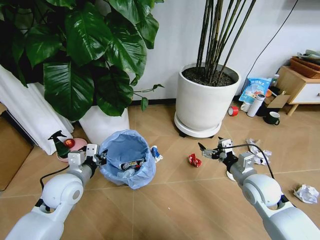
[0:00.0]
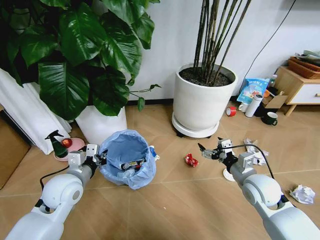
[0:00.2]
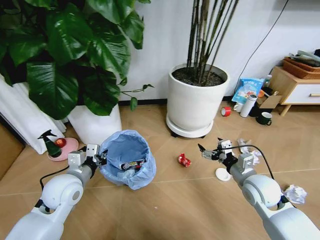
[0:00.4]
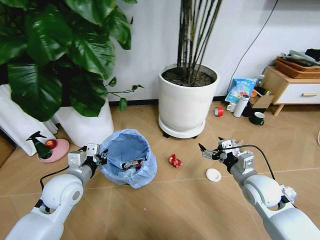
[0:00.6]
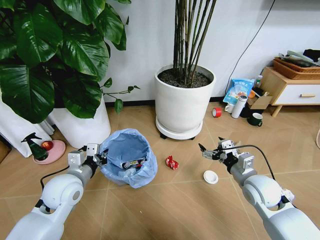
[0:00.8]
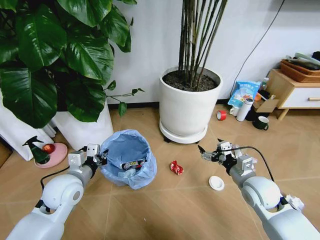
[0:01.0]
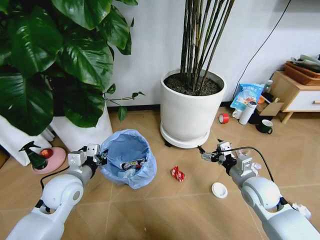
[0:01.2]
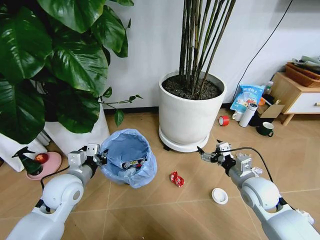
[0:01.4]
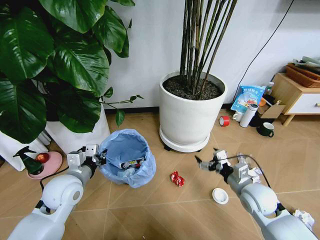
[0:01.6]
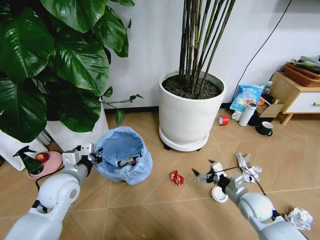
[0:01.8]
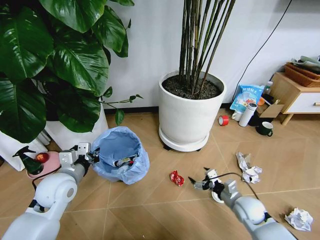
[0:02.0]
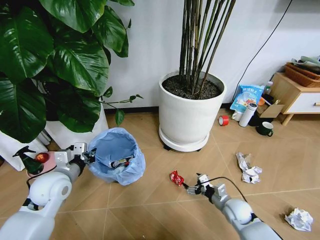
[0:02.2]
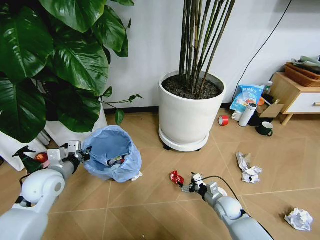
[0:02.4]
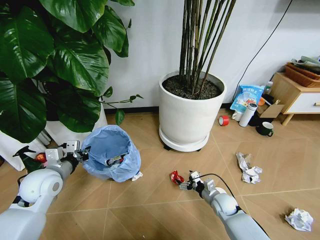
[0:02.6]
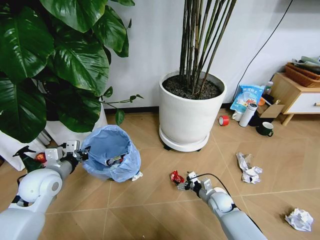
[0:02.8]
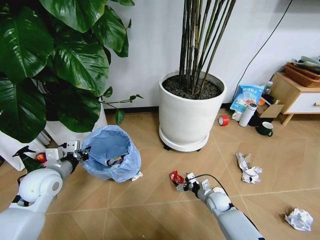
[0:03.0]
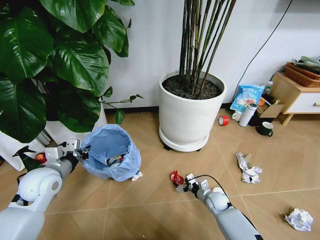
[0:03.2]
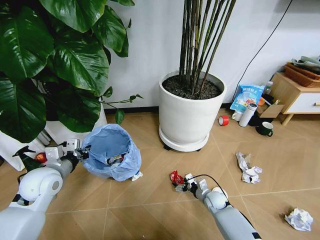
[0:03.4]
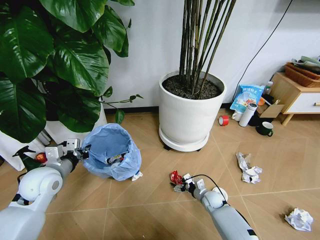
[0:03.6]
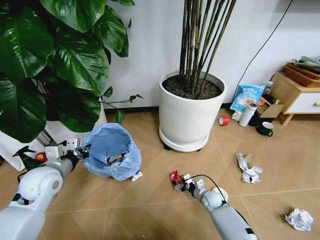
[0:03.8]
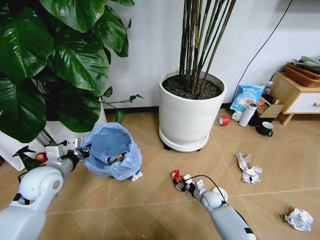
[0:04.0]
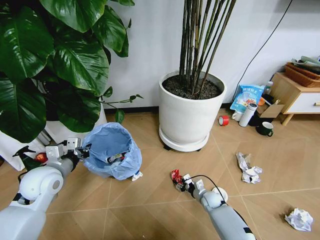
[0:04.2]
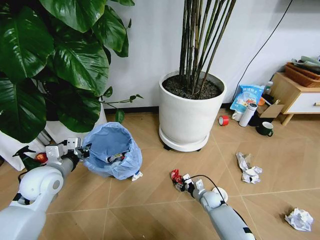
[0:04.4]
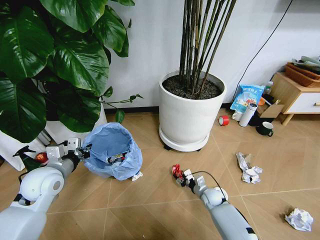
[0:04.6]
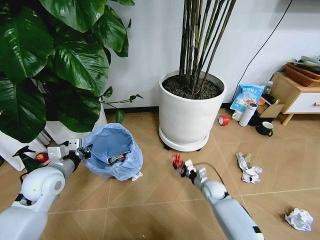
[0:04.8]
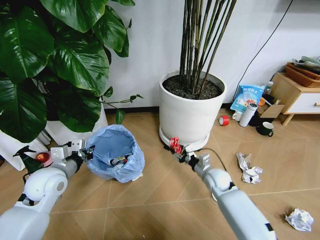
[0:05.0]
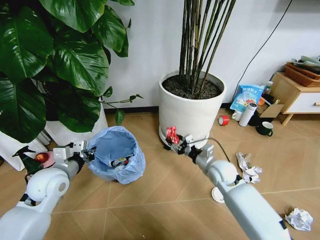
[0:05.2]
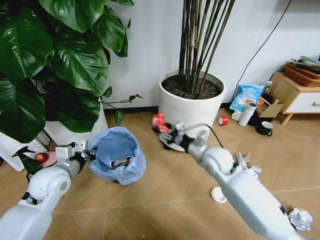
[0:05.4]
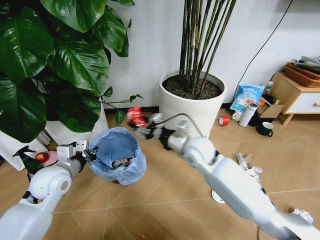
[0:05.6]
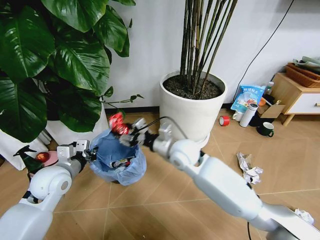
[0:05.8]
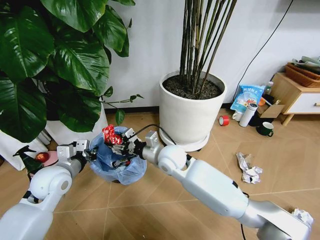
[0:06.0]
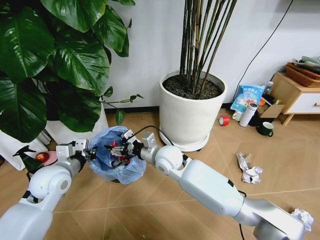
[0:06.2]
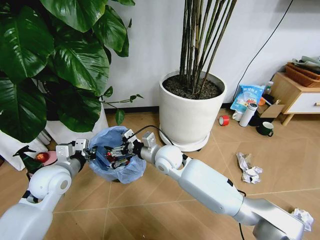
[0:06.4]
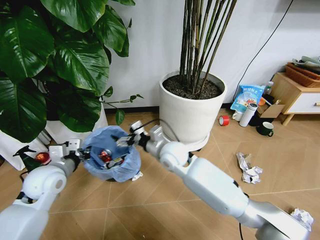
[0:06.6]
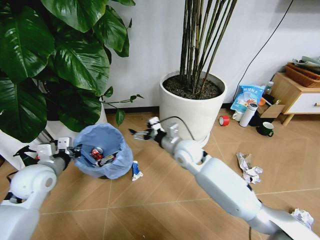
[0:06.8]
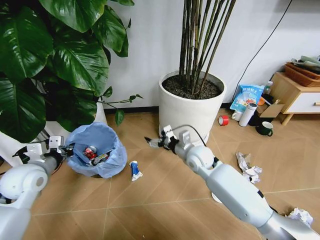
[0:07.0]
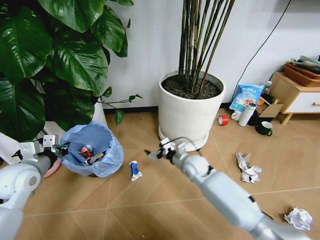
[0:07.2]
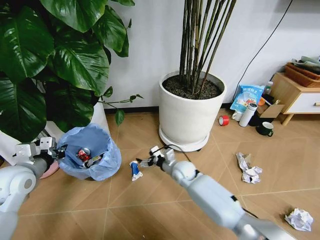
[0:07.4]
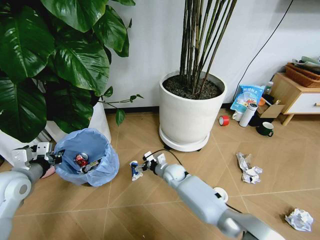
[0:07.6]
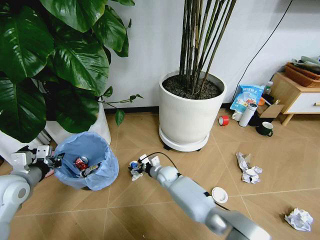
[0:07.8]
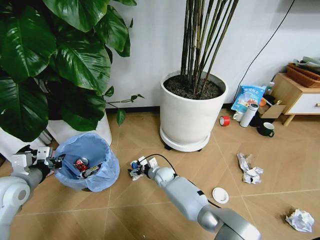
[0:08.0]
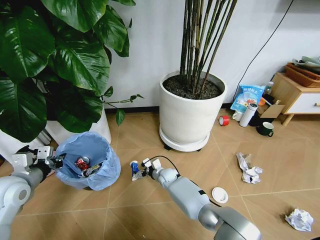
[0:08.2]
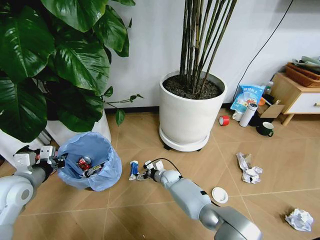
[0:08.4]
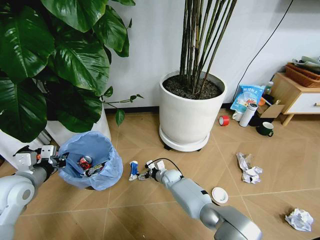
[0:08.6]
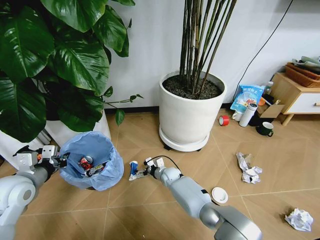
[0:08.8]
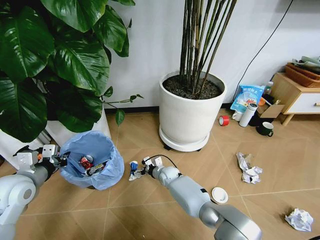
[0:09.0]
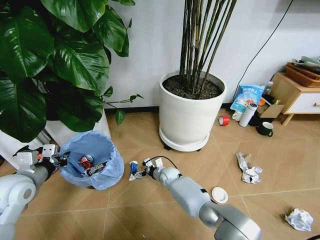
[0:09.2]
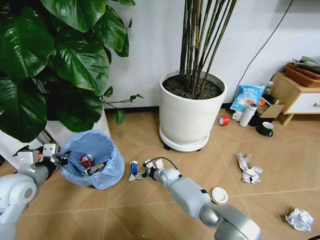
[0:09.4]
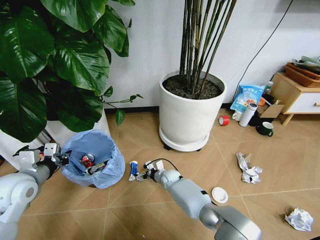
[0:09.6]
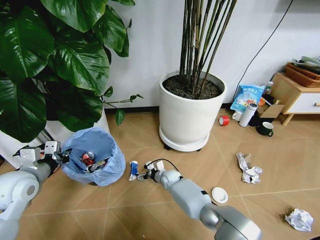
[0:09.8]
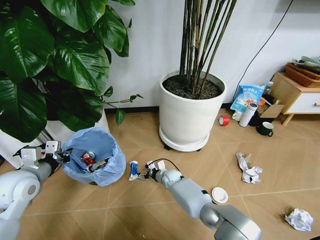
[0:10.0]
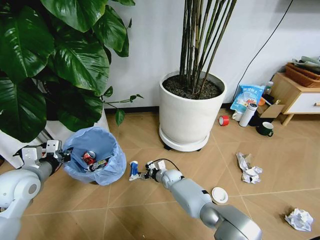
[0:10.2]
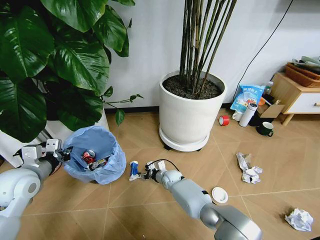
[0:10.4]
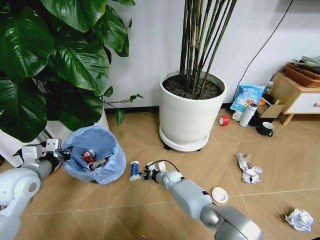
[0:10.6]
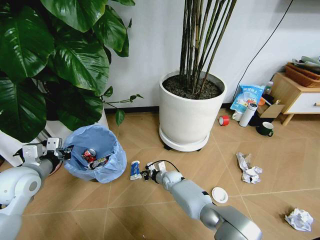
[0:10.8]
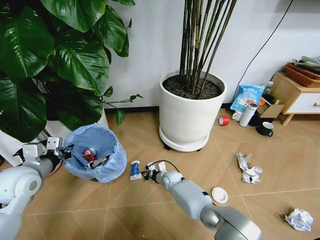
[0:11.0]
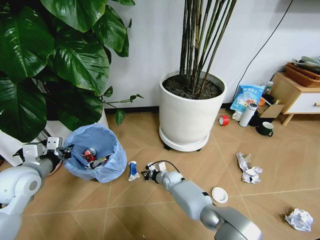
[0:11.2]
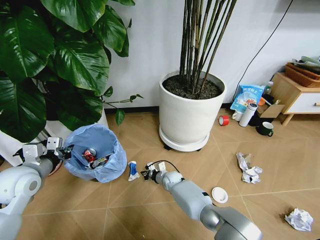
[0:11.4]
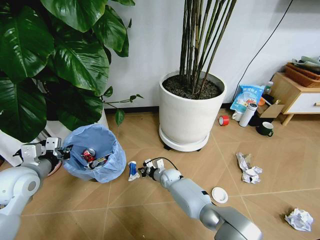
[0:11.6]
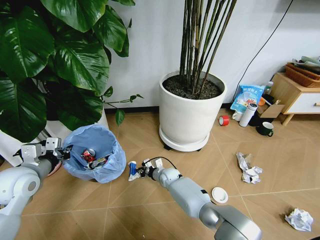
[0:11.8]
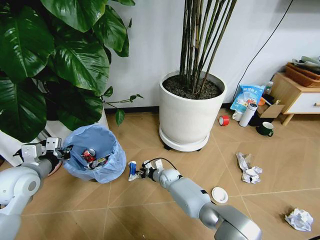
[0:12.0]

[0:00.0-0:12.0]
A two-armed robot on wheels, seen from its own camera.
Task of the whole recording: Pick up the trash bin and place the garbage on the floor into it.
0:01.6 to 0:03.0: The right gripper travels downward by about 20 cm. Meanwhile the left gripper goes roughly 5 cm to the left.
0:03.0 to 0:04.4: The right gripper closes its fingers.
0:04.4 to 0:06.0: The right gripper is displaced upward and to the left by about 40 cm.
0:06.0 to 0:07.6: The left gripper moves to the left, some 10 cm. Meanwhile the right gripper moves downward, roughly 20 cm, and opens.
0:07.6 to 0:09.0: The right gripper is displaced downward by roughly 5 cm.
0:09.0 to 0:10.4: The right gripper closes up.
0:10.4 to 0:12.0: The grippers stay close to where they were, moving slightly.

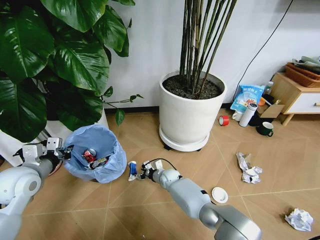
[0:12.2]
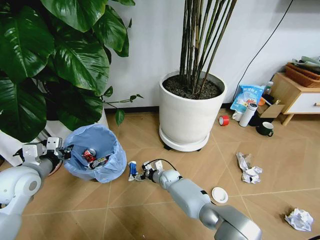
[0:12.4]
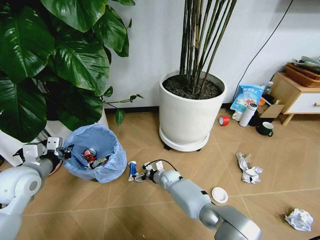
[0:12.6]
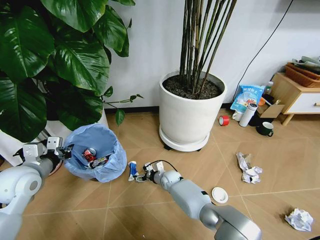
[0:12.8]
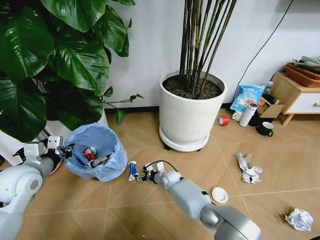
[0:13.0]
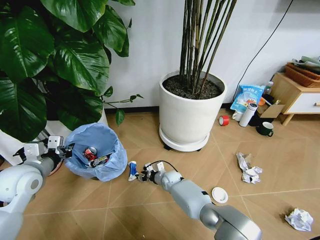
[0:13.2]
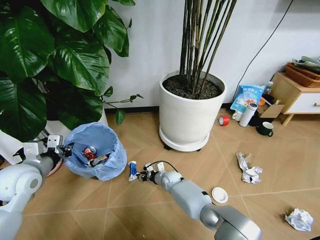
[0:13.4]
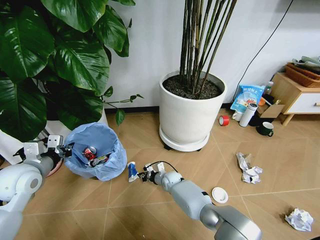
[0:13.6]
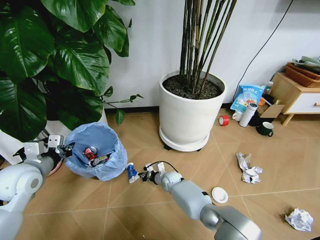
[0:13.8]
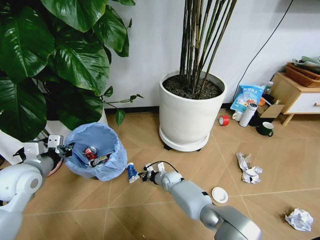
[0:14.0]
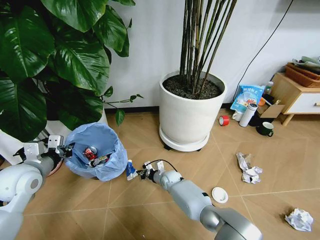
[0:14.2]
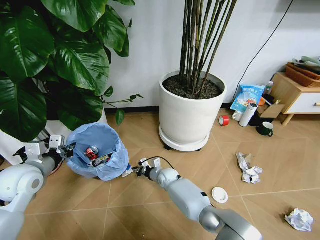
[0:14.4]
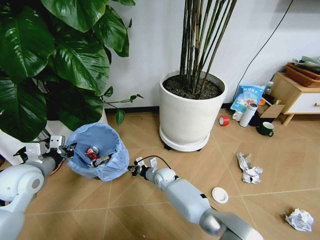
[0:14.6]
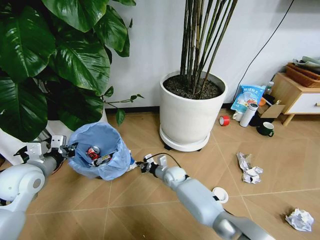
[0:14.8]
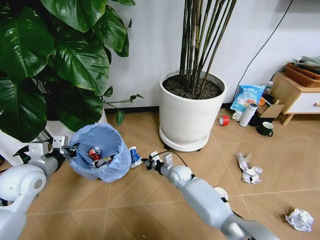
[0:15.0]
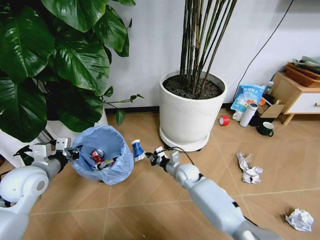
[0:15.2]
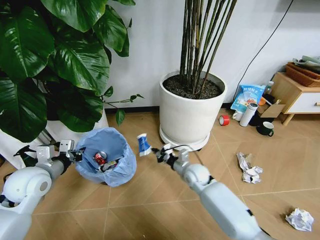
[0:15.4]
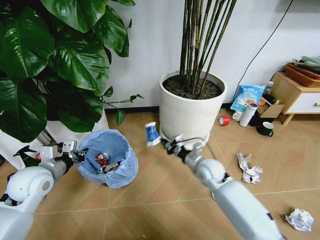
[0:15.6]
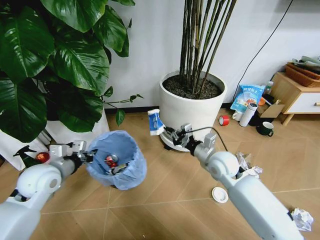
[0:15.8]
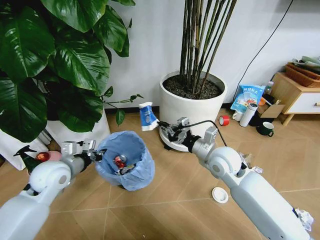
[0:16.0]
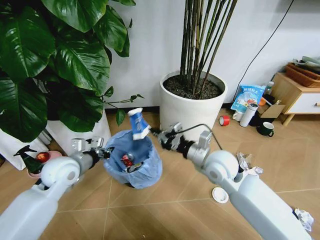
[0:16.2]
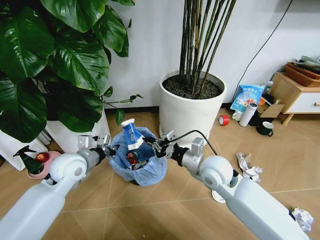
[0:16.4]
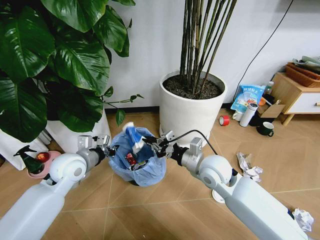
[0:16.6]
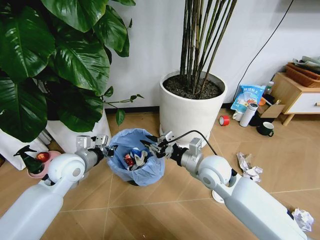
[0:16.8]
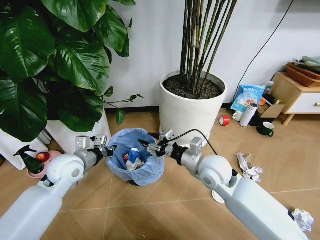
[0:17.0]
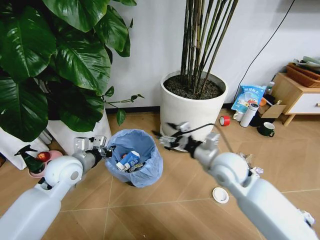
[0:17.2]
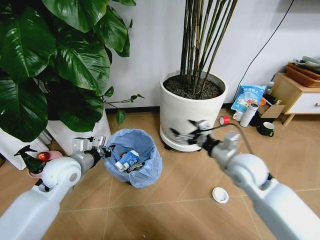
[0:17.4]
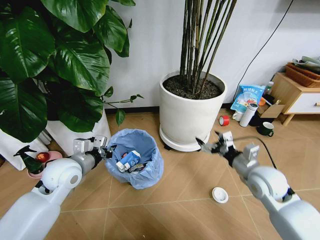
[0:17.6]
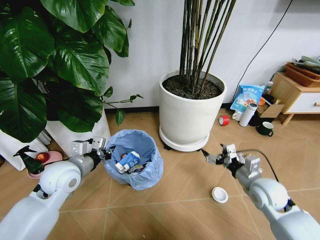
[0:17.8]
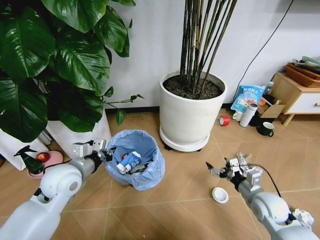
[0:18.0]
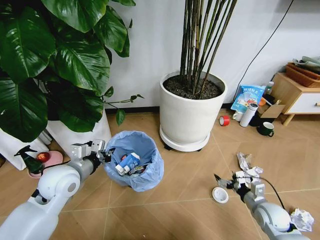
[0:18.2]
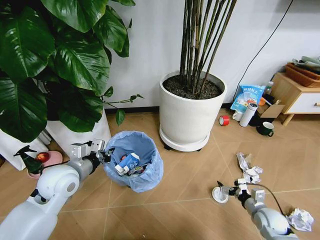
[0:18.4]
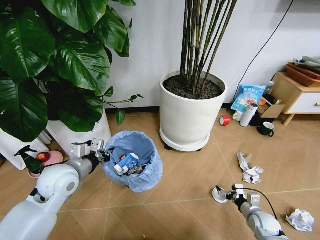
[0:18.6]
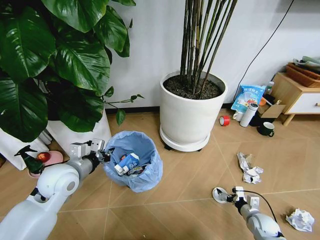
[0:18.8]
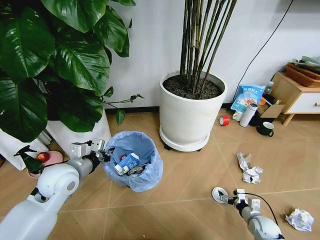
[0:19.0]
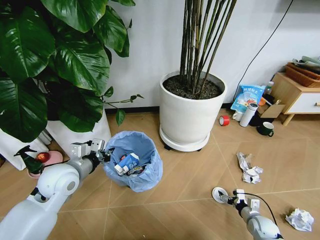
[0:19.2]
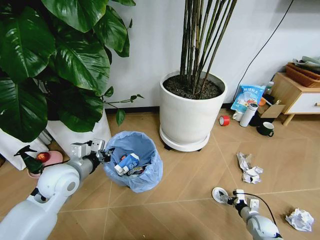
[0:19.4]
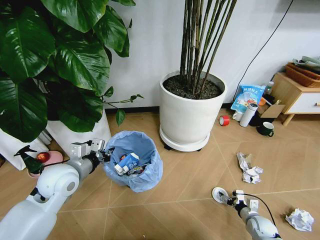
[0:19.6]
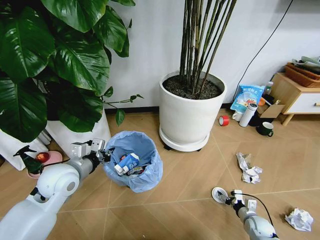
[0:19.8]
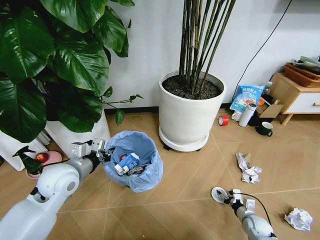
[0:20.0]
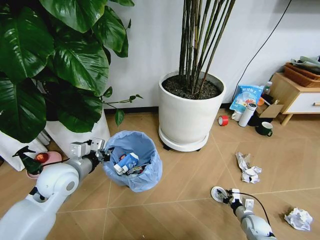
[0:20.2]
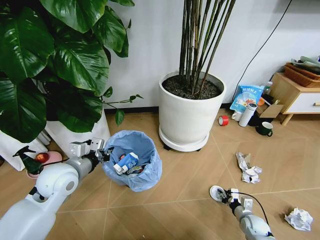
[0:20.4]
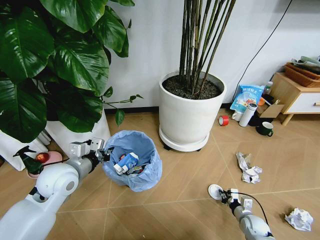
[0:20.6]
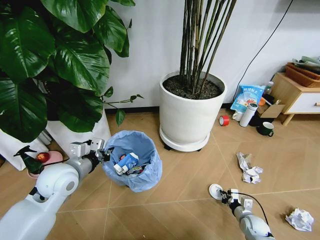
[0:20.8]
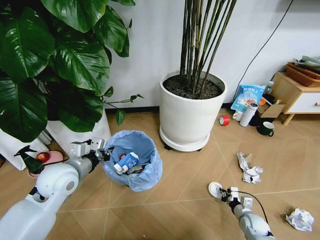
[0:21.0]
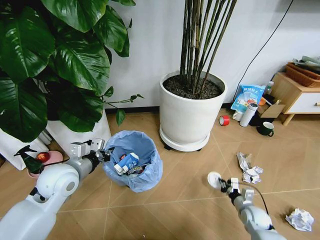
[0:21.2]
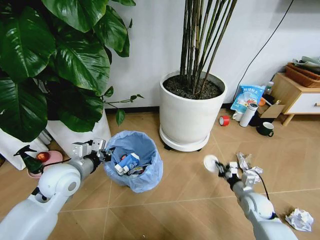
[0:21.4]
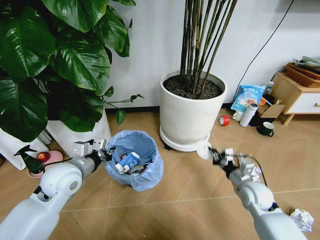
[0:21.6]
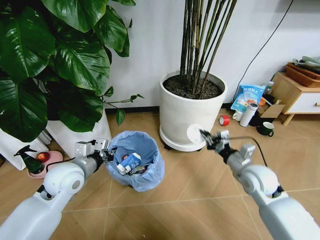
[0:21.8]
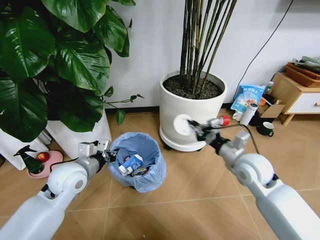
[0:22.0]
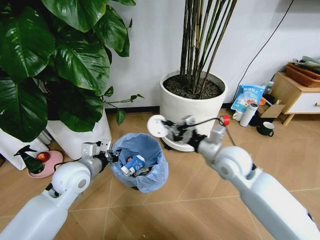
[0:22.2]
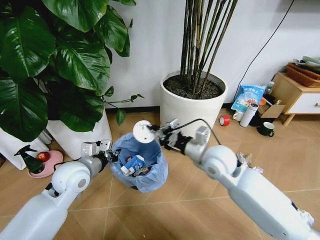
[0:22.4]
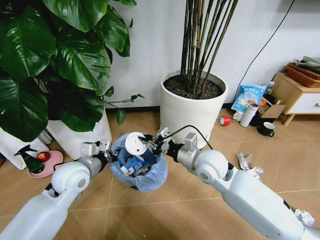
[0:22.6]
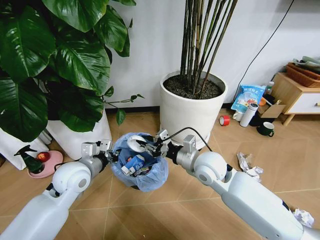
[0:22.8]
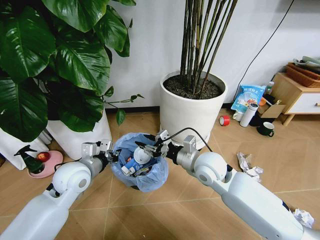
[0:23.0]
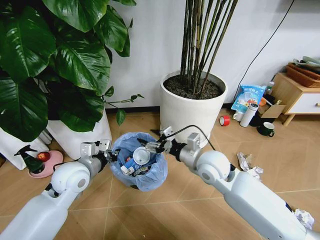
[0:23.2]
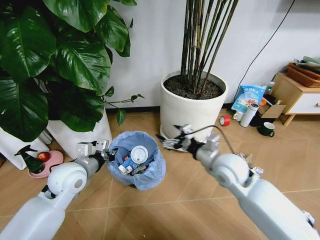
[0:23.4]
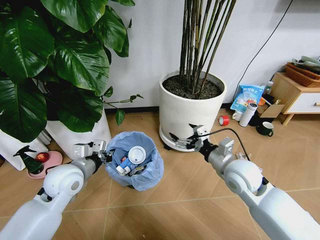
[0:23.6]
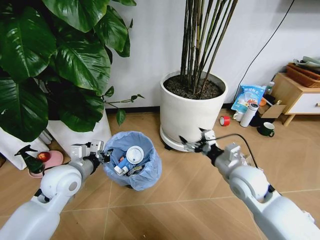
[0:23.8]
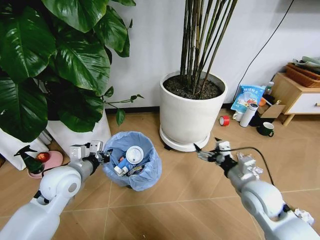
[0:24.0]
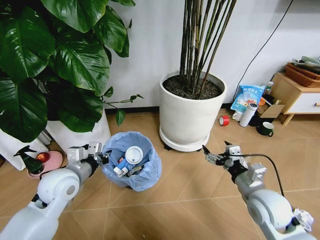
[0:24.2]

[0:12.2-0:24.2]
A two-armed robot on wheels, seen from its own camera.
Task of the whole recording: Pick up the trash bin and place the garbage on the floor into it.
0:12.2 to 0:13.8: The right gripper closes its fingers.
0:13.8 to 0:15.2: The right gripper travels upward and to the right by some 10 cm.
0:15.2 to 0:16.6: The right gripper travels upward and backward by roughly 20 cm. The left gripper is displaced to the right and forward by roughly 10 cm.
0:16.6 to 0:18.2: The right gripper shifts approximately 30 cm to the right and downward, and opens.
0:18.2 to 0:19.8: The right gripper moves downward, roughly 15 cm.
0:19.8 to 0:21.2: The right gripper shifts approximately 5 cm upward, and closes its fingers.
0:21.2 to 0:22.6: The right gripper shifts some 35 cm upward and to the left.
0:22.6 to 0:24.2: The right gripper is displaced to the right and backward by approximately 20 cm, and opens.
